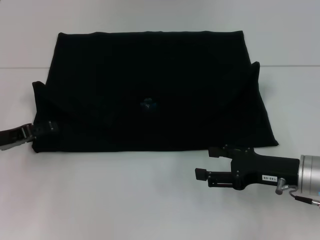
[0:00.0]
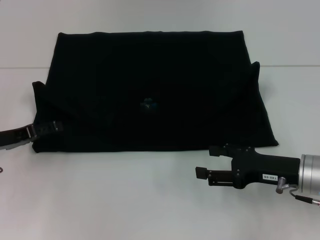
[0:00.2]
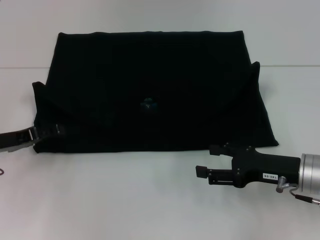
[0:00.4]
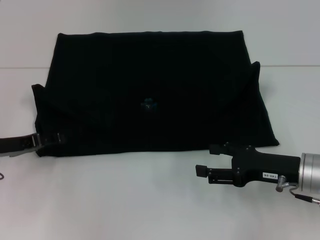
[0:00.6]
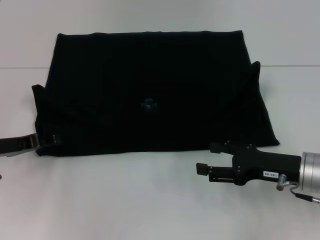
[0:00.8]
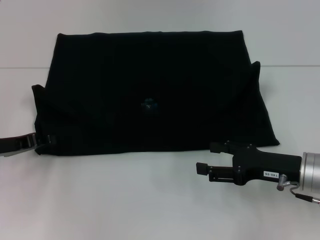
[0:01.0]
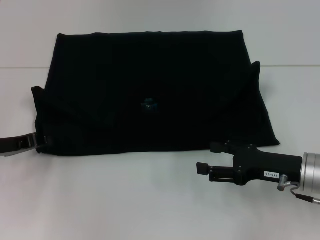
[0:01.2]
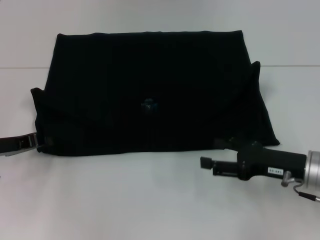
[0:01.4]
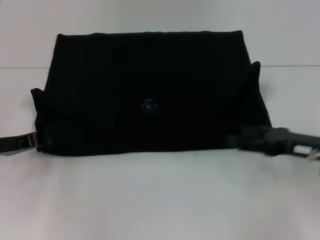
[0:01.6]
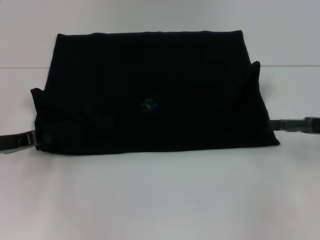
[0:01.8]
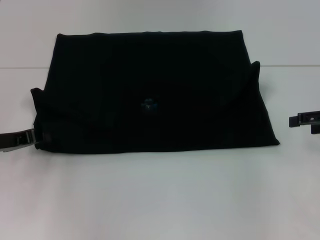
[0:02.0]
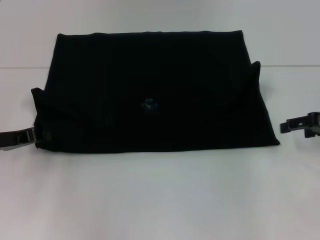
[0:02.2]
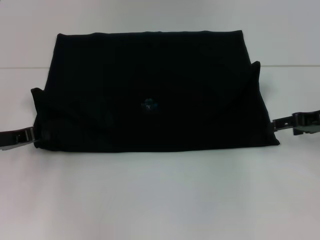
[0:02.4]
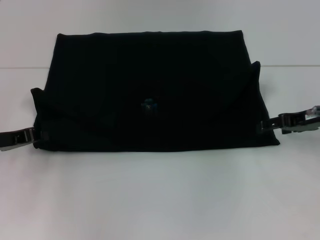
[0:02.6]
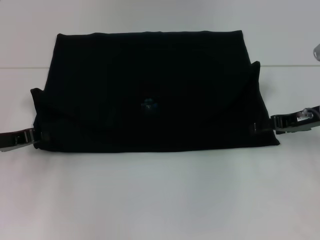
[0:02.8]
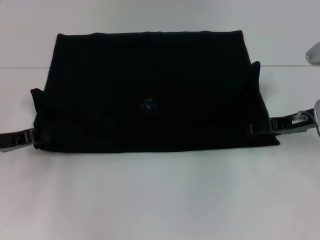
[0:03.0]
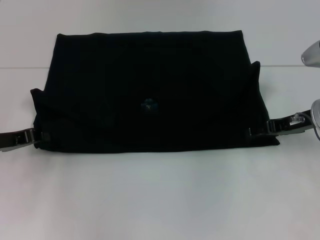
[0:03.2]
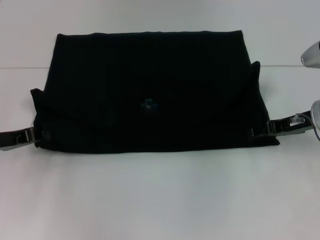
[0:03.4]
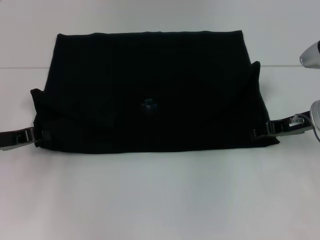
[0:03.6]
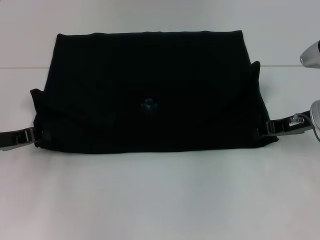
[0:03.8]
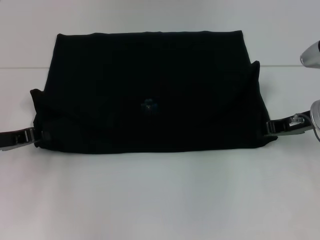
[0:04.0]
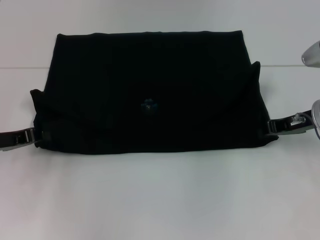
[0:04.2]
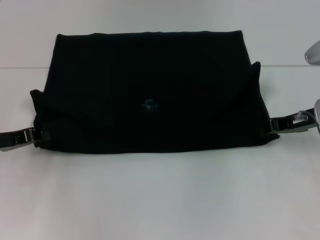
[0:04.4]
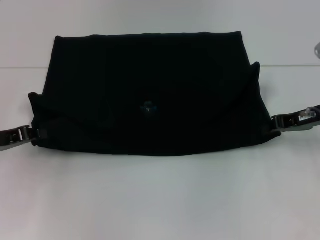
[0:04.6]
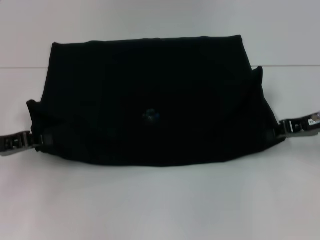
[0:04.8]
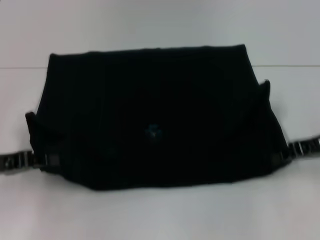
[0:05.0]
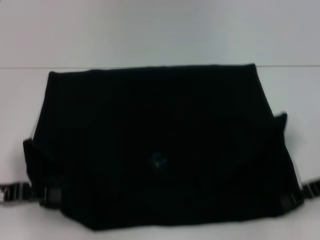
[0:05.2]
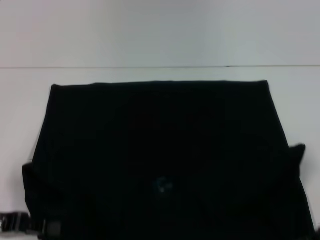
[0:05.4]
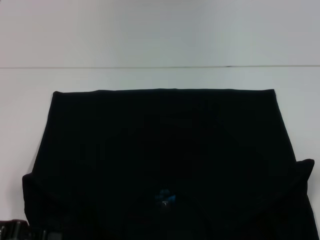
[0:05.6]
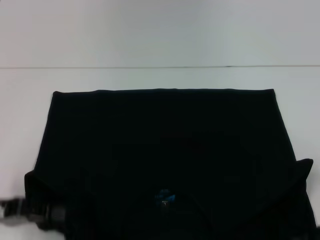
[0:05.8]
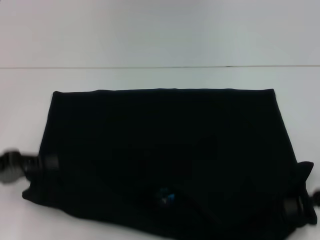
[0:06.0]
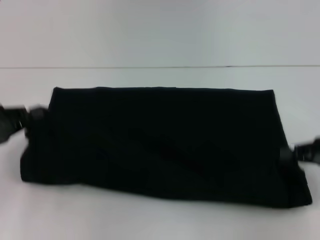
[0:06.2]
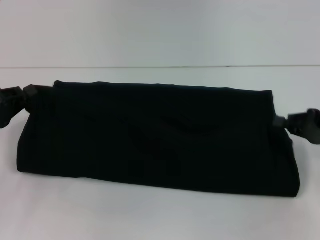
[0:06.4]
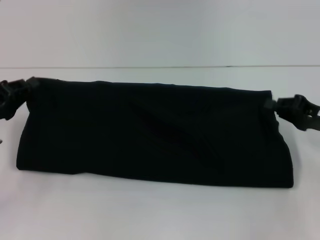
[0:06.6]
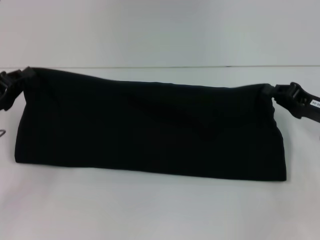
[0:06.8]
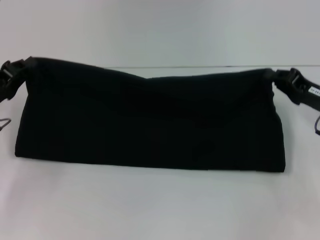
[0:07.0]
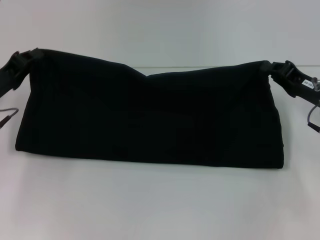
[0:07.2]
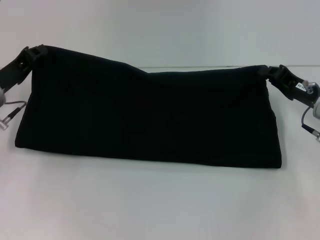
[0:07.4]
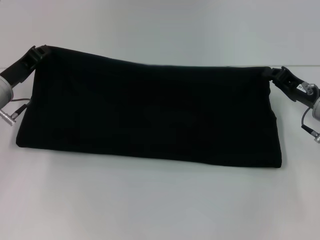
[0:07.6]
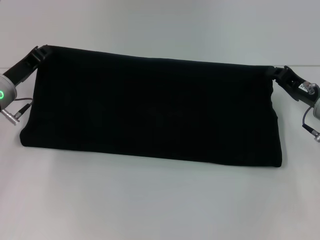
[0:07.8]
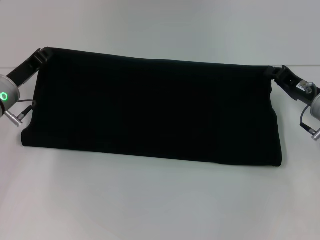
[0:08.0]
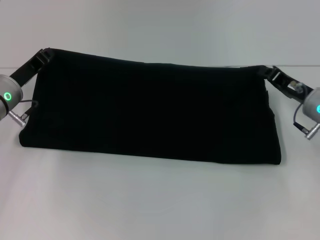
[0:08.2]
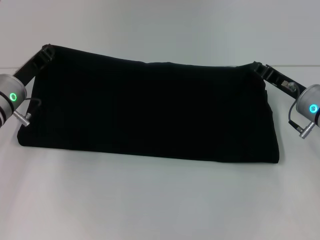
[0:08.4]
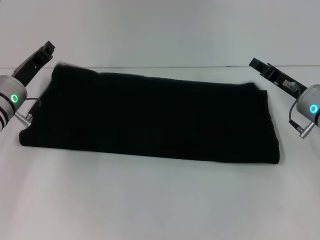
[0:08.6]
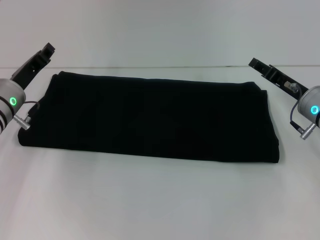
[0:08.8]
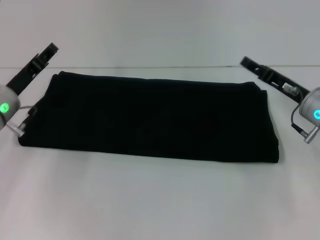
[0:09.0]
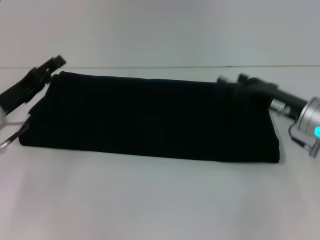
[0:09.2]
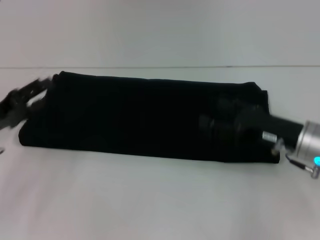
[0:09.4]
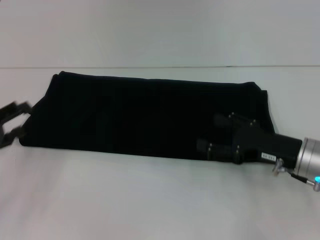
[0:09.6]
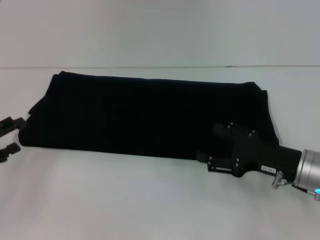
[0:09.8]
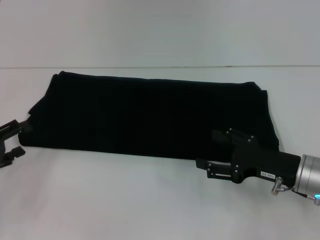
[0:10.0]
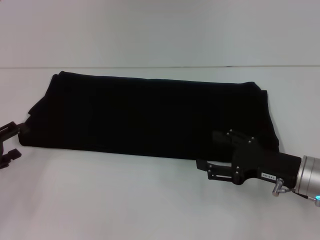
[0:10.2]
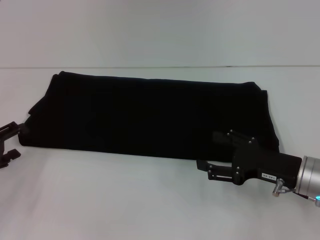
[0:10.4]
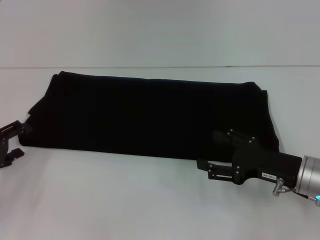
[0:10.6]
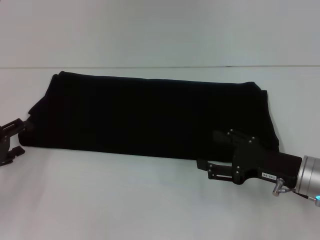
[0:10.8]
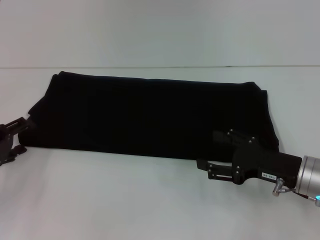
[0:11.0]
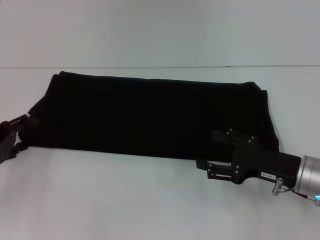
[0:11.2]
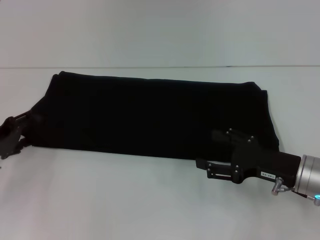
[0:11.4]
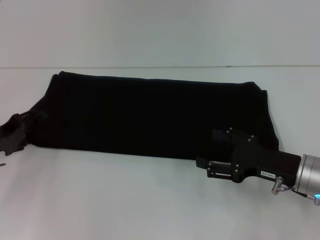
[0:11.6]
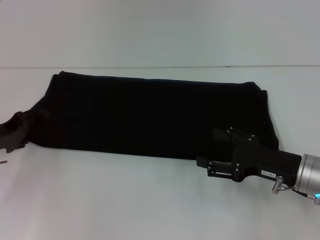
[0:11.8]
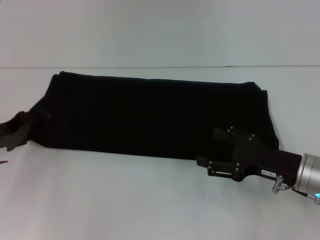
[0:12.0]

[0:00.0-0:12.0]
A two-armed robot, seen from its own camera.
Step, 0:00.0 to 0:05.4: Pull the clothes with your left hand.
Step, 0:00.0 to 0:05.4: Pull the clothes with your right hand.
Step, 0:05.6 to 0:09.0: Fold the clothes with your right hand.
0:00.0 to 0:01.6: The right gripper changes place by approximately 5 cm; the left gripper closes.
0:01.6 to 0:03.0: The right gripper heads forward, covering some 10 cm, and moves roughly 5 cm to the right and comes back.
0:03.0 to 0:04.4: The right gripper closes.
0:04.4 to 0:06.0: The right gripper goes some 15 cm backward and to the right. The left gripper shifts roughly 5 cm backward.
0:06.0 to 0:07.6: The right gripper is displaced forward and to the left by roughly 10 cm, while the left gripper goes about 15 cm forward.
0:07.6 to 0:09.0: The left gripper opens up, while the right gripper opens its fingers.
0:09.0 to 0:10.4: The left gripper shifts about 15 cm backward and to the left, and opens. The right gripper goes some 10 cm backward.
0:10.4 to 0:12.0: The left gripper is displaced forward by about 5 cm.

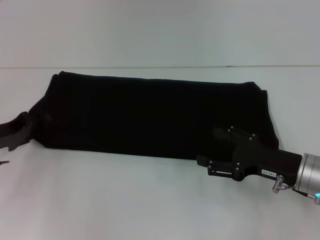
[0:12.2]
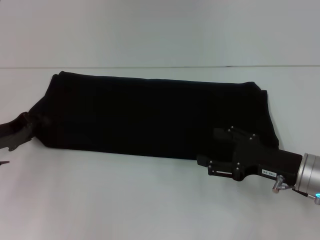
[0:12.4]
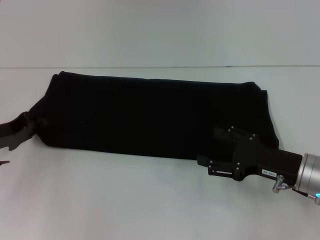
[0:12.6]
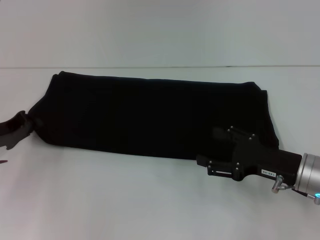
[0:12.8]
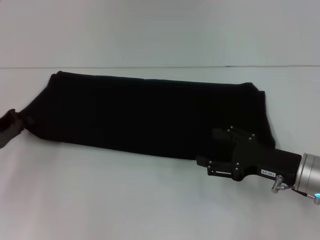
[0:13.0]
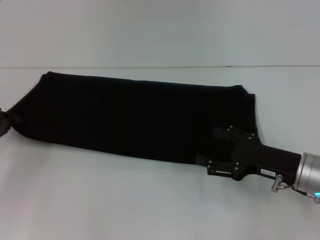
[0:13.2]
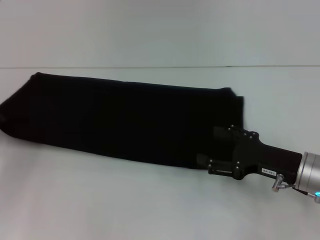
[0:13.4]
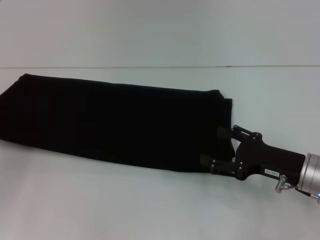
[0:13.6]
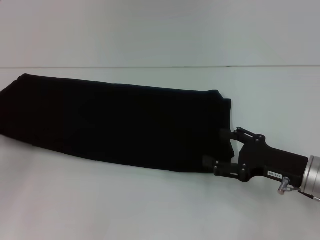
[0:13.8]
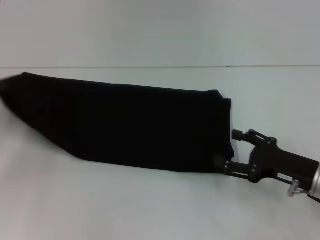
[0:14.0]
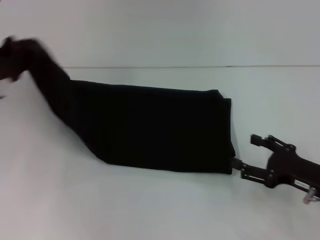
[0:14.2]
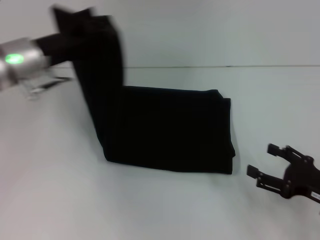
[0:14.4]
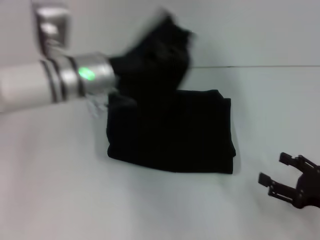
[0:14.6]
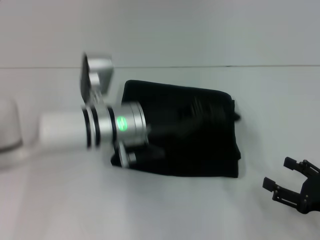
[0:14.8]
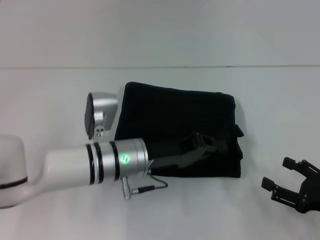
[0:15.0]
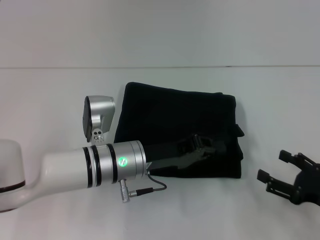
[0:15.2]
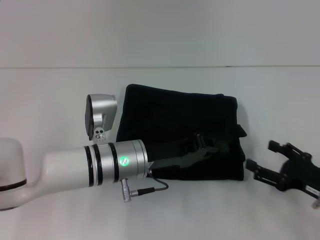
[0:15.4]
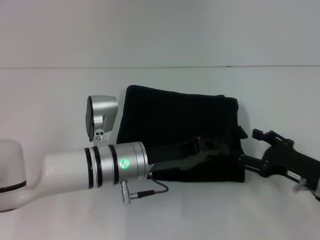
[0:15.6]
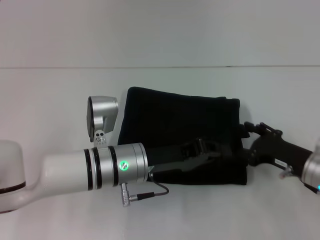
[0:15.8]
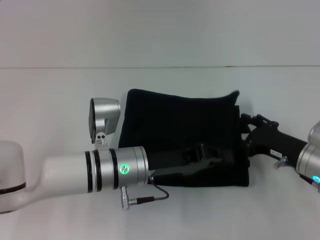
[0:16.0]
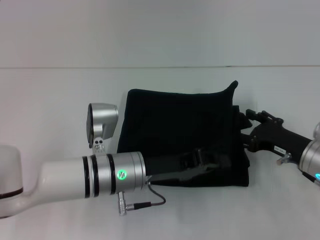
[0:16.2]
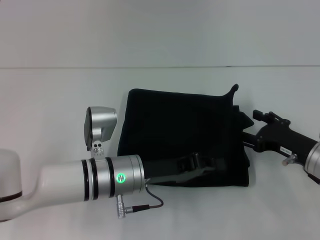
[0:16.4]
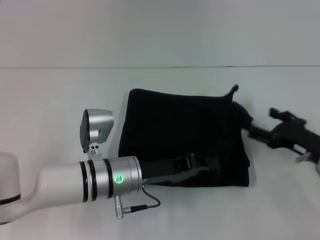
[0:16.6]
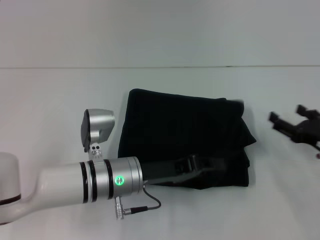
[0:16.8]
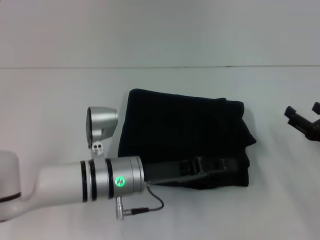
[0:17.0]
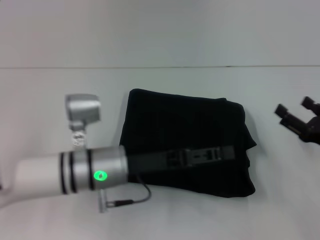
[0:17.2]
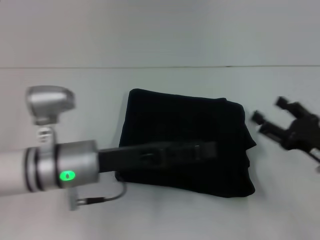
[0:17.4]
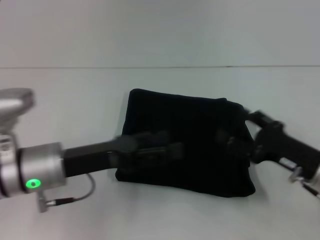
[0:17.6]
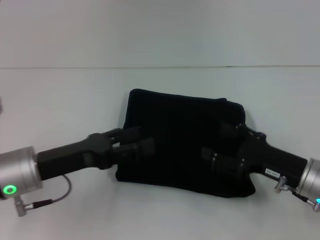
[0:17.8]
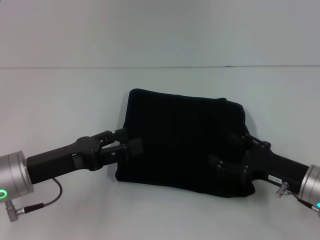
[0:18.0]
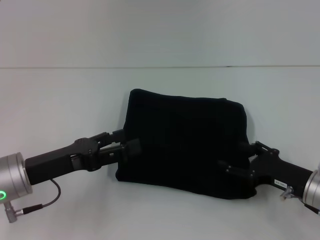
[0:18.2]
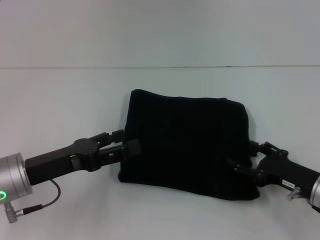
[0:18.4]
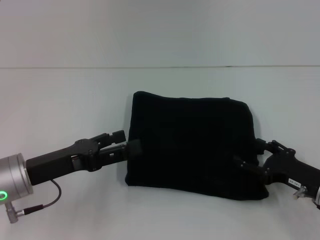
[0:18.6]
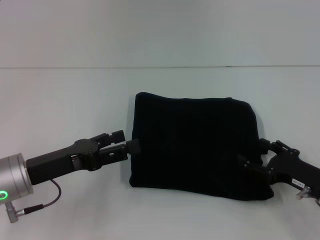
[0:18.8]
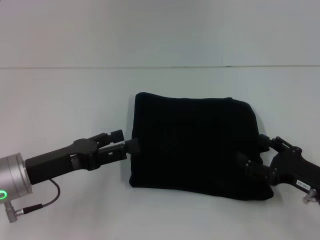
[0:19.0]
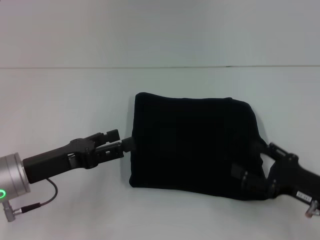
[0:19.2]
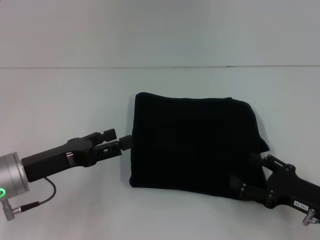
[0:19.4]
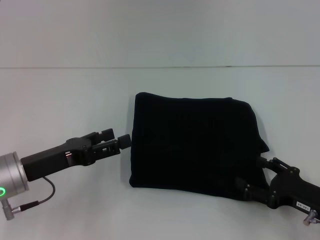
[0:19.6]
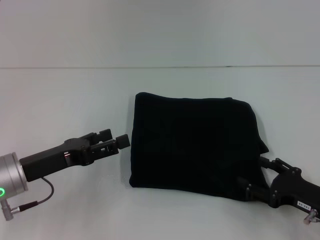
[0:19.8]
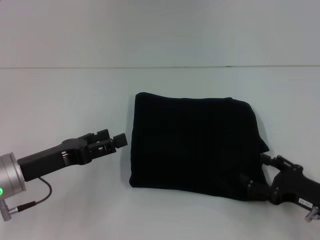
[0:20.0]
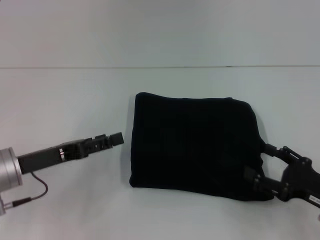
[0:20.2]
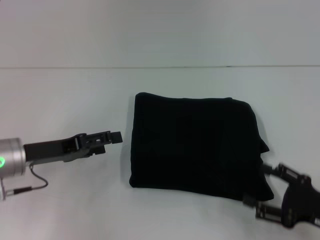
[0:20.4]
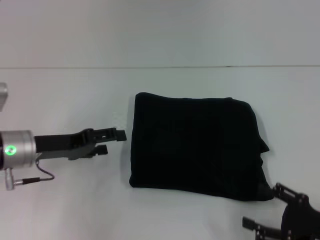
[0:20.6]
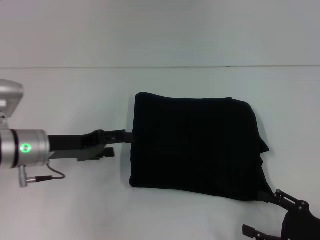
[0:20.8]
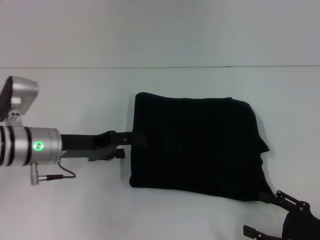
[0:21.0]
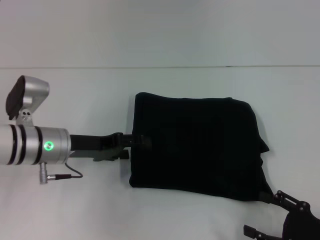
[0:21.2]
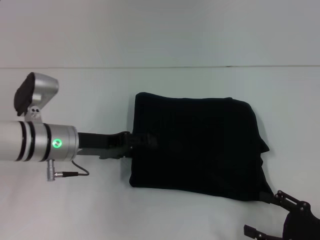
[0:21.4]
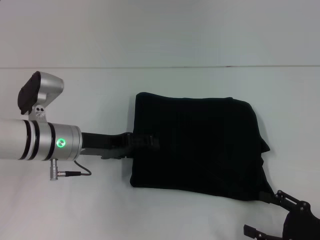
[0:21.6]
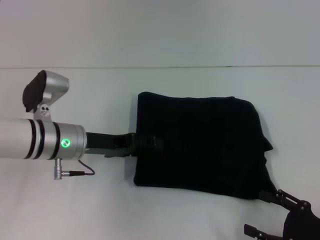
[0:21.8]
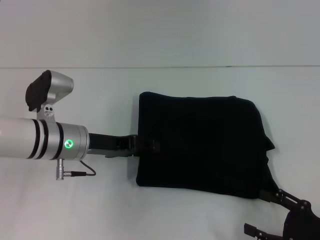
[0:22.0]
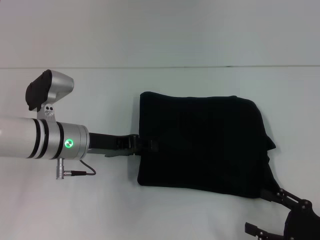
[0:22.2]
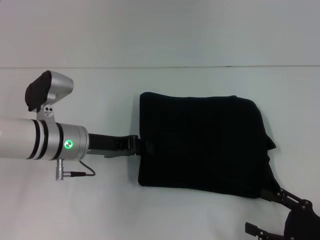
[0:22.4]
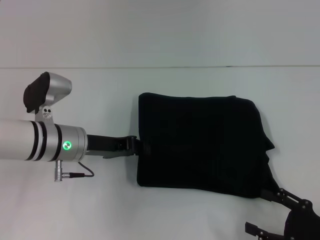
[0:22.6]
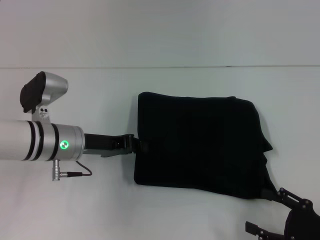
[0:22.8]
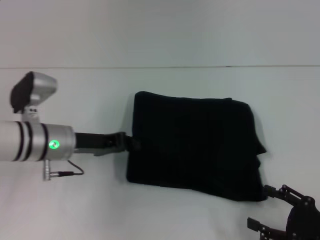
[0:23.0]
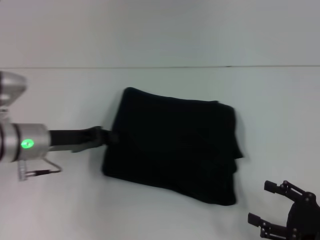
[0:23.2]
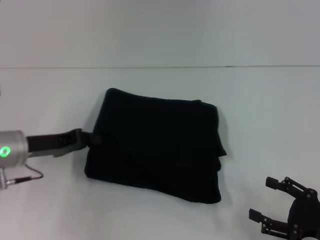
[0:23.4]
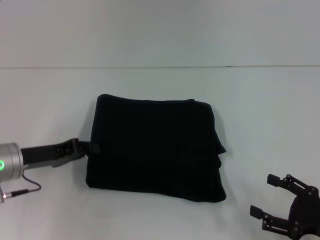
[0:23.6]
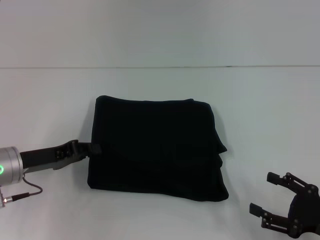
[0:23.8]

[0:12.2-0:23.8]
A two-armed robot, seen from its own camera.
Step, 0:12.2 to 0:17.4: Fold the clothes with your left hand.
0:12.2 to 0:13.6: The left gripper heads to the left, covering some 5 cm, and closes up.
0:13.6 to 0:15.0: The right gripper heads to the right and backward, covering some 10 cm; the left gripper travels to the right by some 30 cm.
0:15.0 to 0:16.6: The right gripper goes approximately 10 cm forward.
0:16.6 to 0:18.0: The left gripper heads to the left, covering roughly 15 cm, and opens.
0:18.0 to 0:19.4: The right gripper changes place by some 5 cm.
0:19.4 to 0:21.0: The left gripper is displaced forward by roughly 5 cm, while the right gripper heads backward, covering roughly 5 cm.
0:21.0 to 0:22.4: The left gripper closes its fingers.
0:22.4 to 0:23.8: The left gripper moves to the left and backward, some 10 cm, and closes its fingers.
